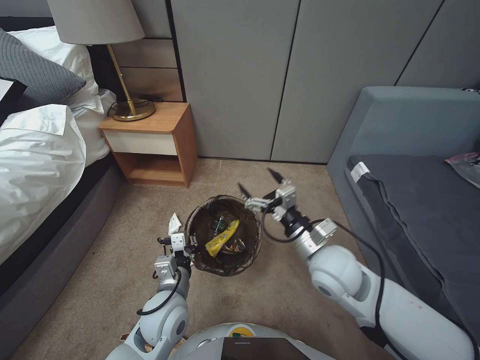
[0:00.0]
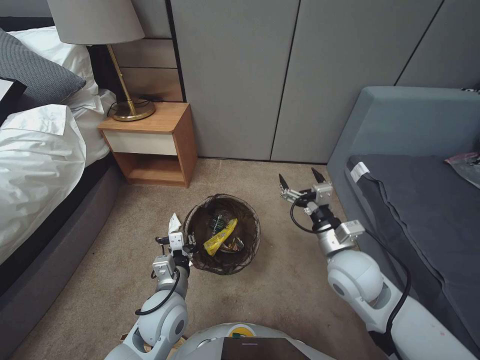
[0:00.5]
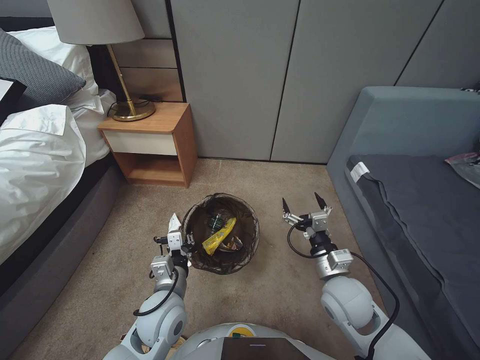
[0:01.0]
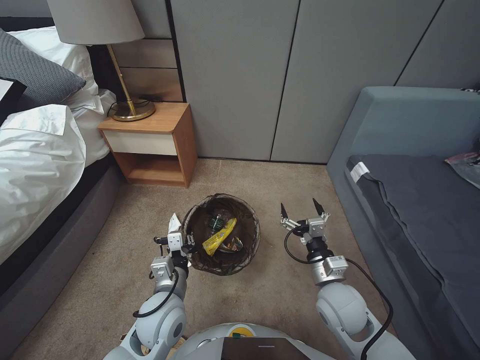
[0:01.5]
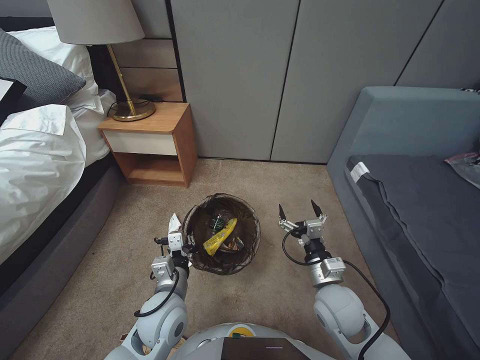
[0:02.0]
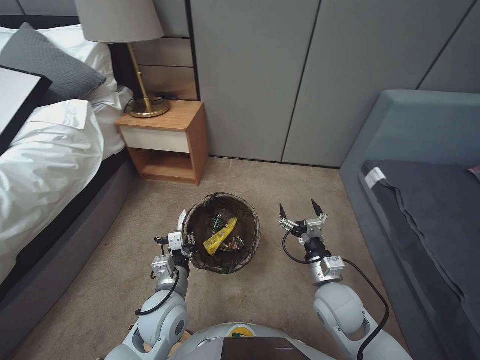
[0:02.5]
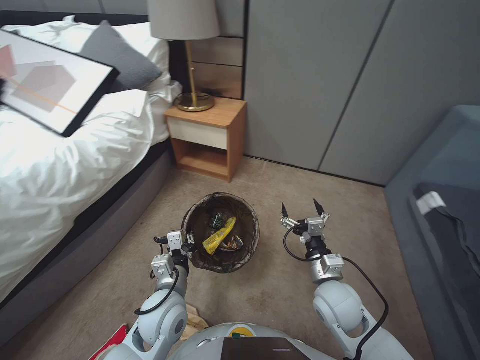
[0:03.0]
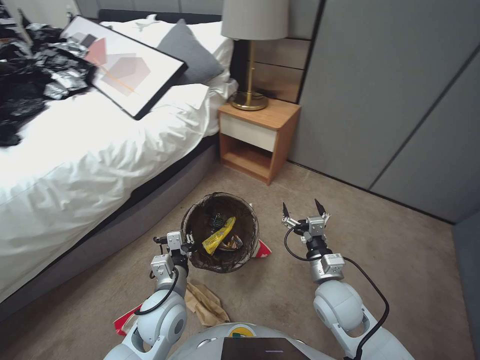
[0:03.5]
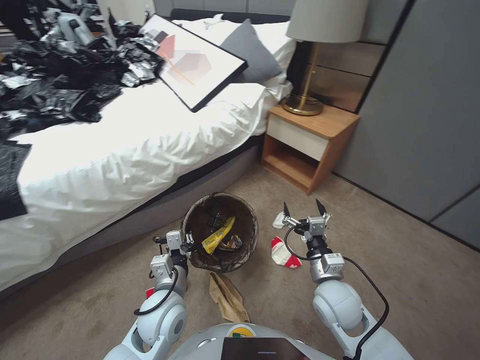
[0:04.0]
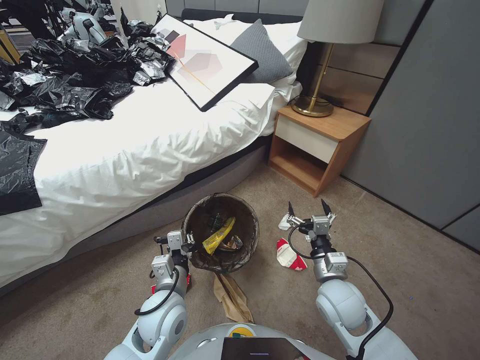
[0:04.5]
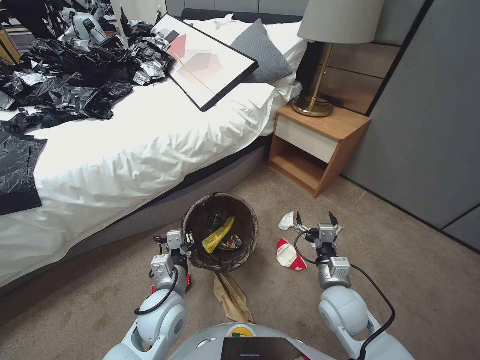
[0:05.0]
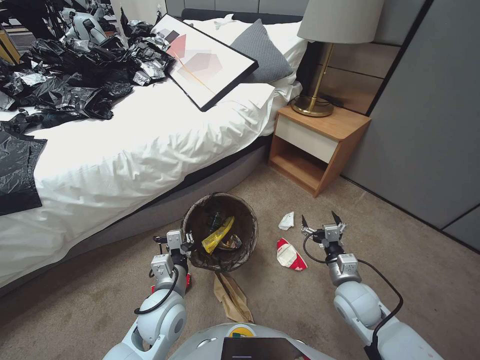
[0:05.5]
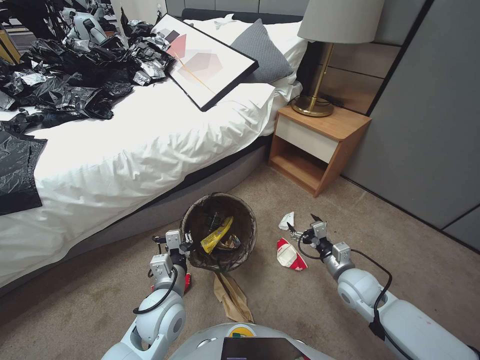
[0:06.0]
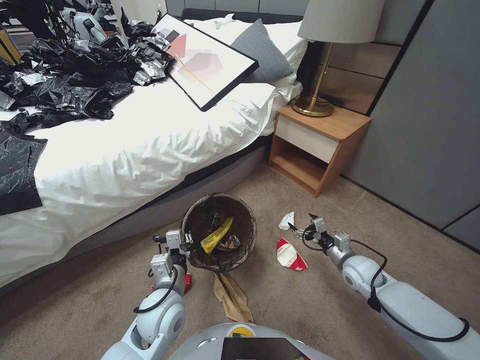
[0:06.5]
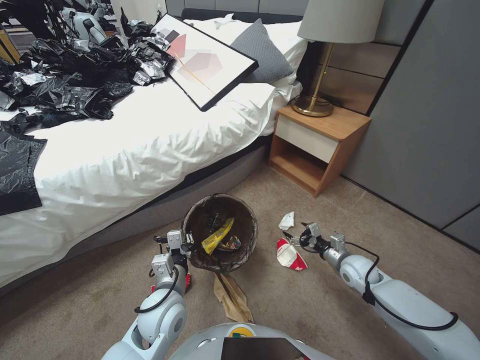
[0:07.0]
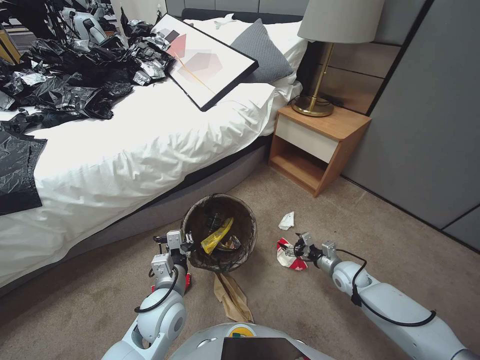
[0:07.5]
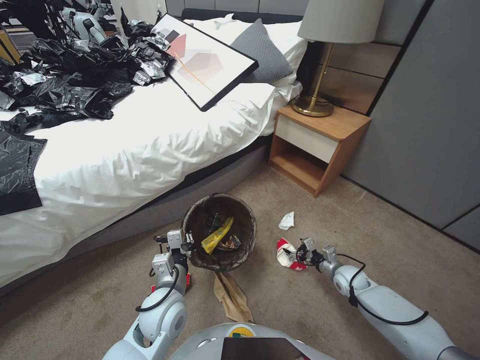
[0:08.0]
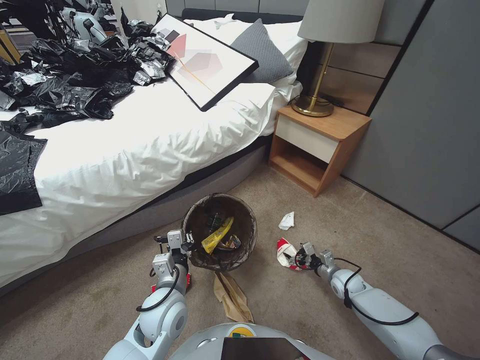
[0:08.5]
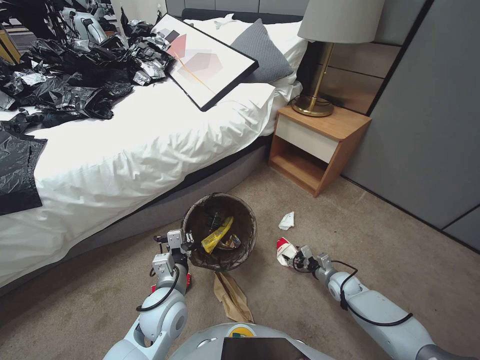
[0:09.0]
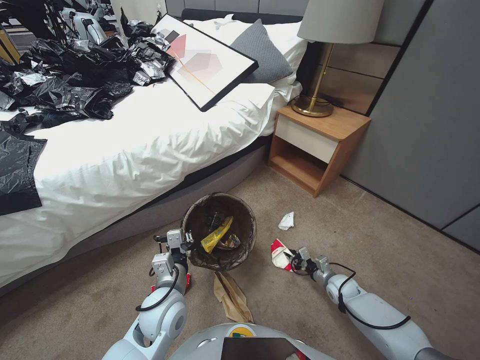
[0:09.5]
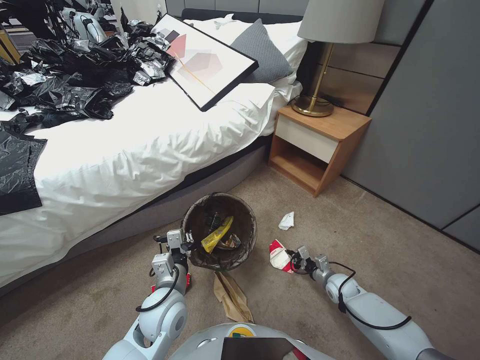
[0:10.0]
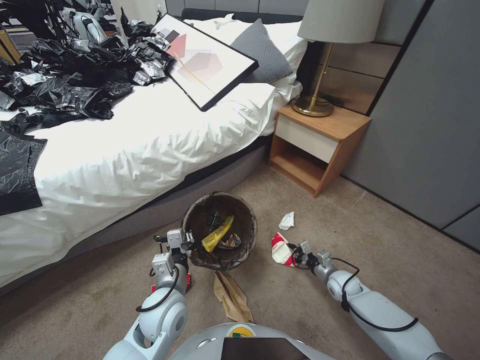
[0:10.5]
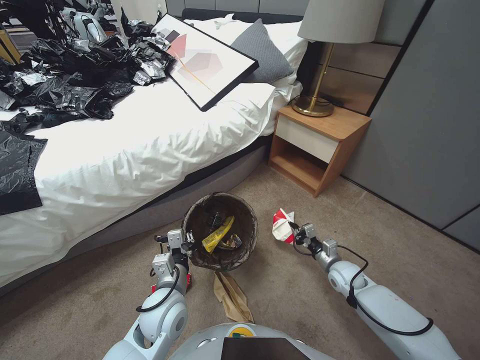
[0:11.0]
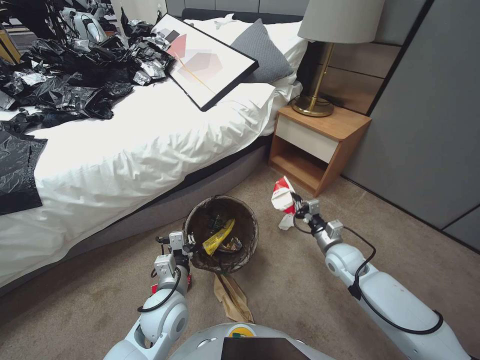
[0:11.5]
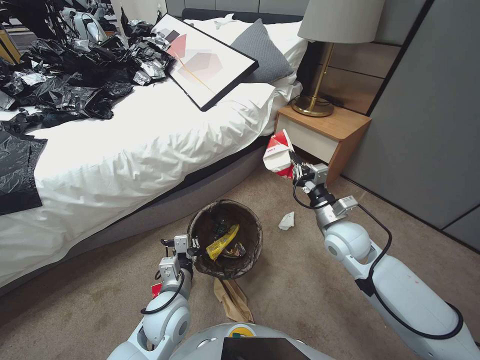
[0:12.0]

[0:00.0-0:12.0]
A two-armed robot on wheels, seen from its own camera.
Task of the whole recording: Pick up the trash bin, then pick up the garbage from the floor and place it into the trash bin.
0:00.0 to 0:02.0: The right gripper moves to the right, roughly 5 cm, and reaches approximately 10 cm upward, then returns.
0:04.0 to 0:06.0: The right gripper moves to the right and downward, some 10 cm.
0:06.0 to 0:08.0: The right gripper is displaced downward, to the right and forward by about 15 cm.
0:08.0 to 0:10.0: The right gripper closes up.
0:10.0 to 0:12.0: The right gripper shifts about 25 cm upward.

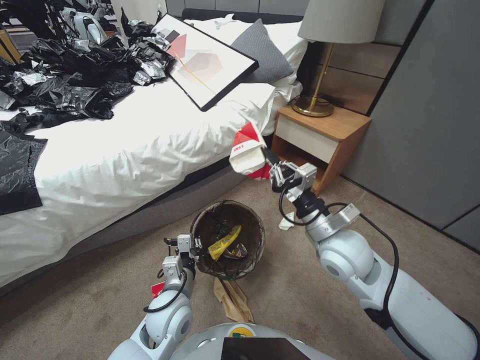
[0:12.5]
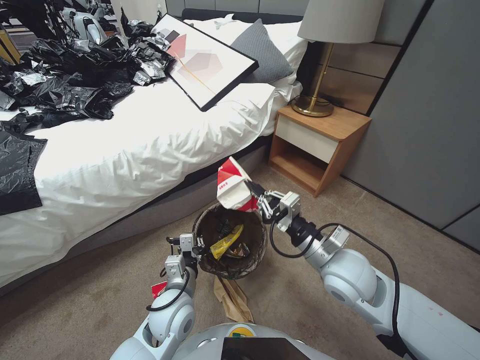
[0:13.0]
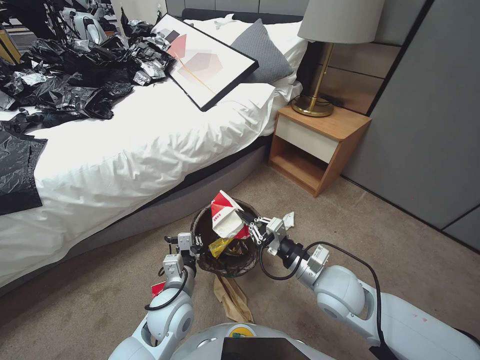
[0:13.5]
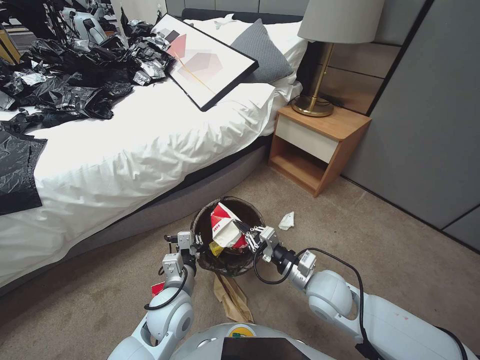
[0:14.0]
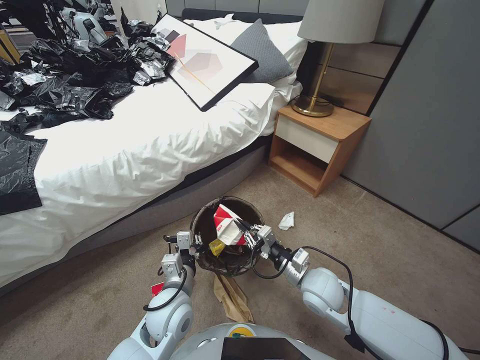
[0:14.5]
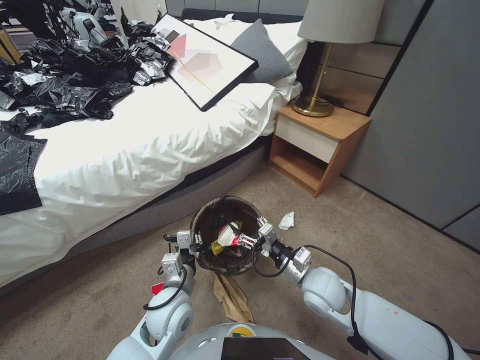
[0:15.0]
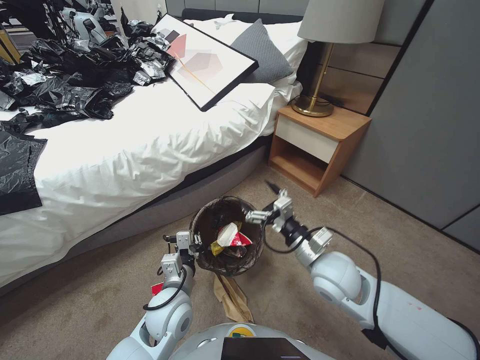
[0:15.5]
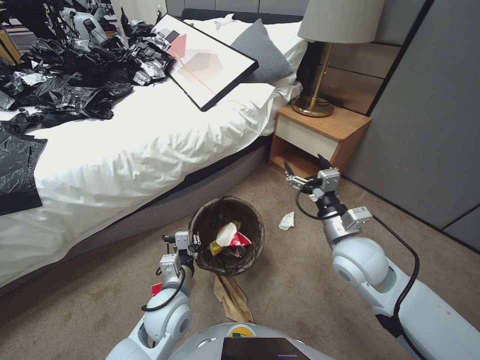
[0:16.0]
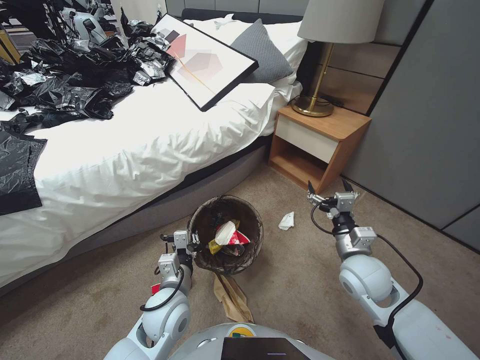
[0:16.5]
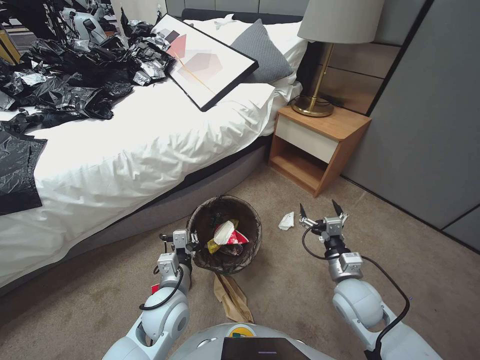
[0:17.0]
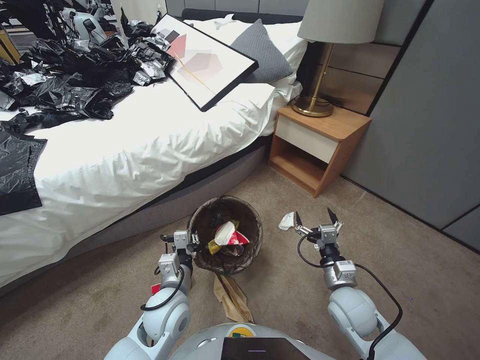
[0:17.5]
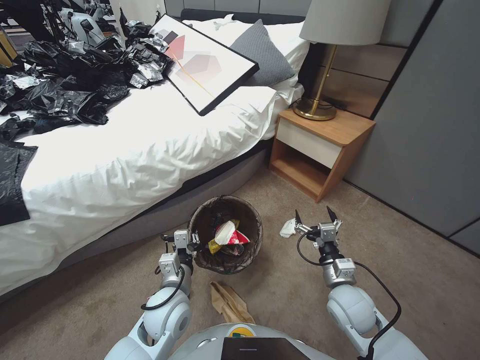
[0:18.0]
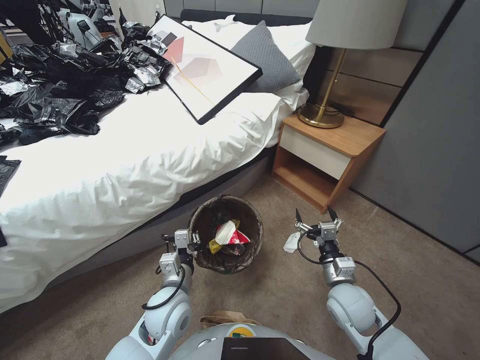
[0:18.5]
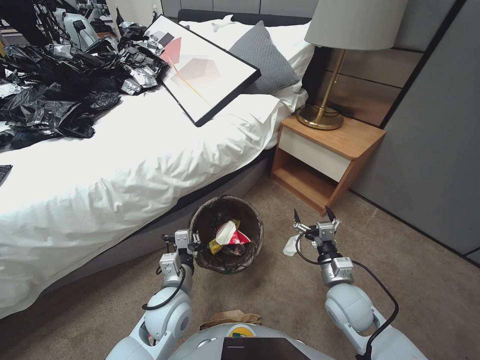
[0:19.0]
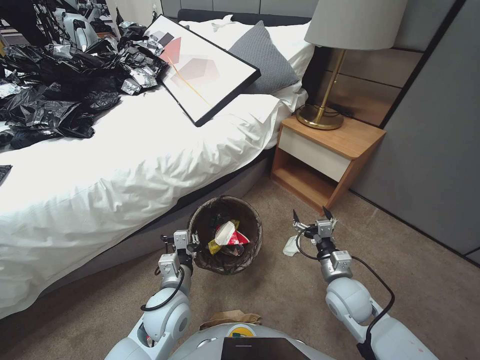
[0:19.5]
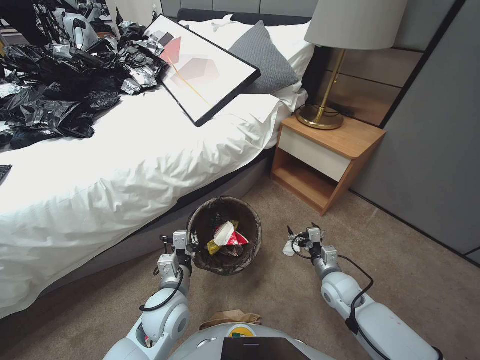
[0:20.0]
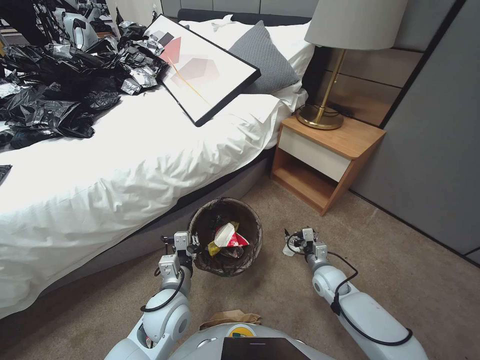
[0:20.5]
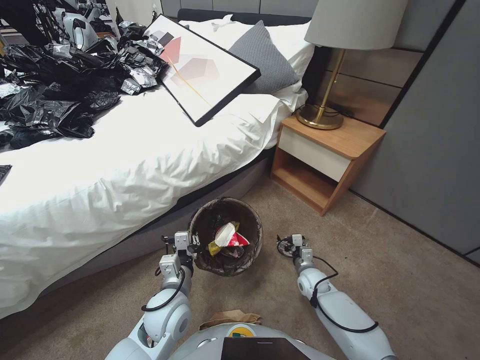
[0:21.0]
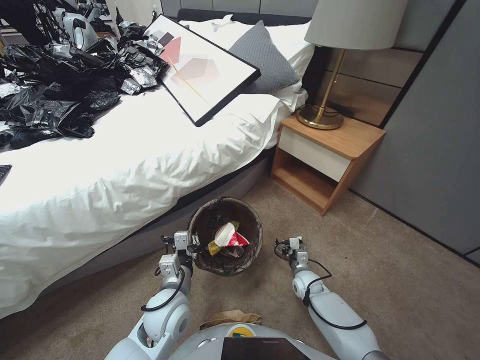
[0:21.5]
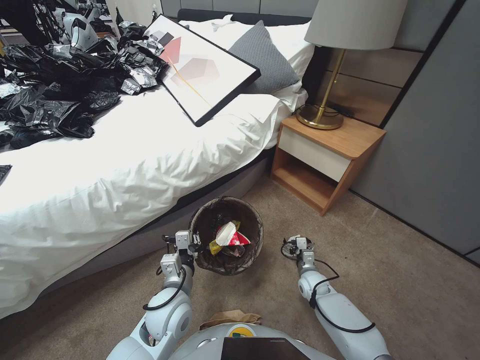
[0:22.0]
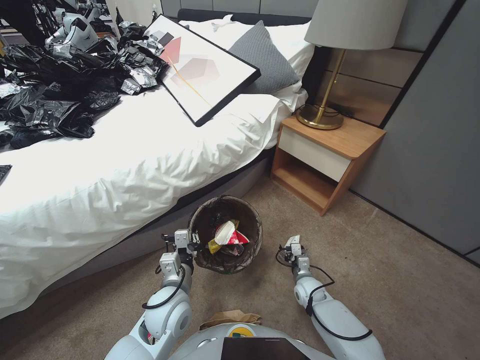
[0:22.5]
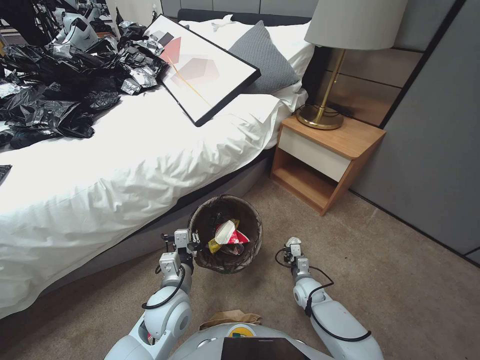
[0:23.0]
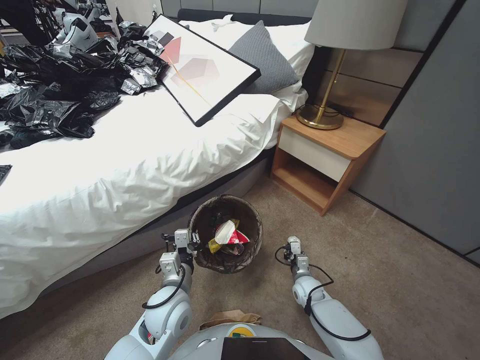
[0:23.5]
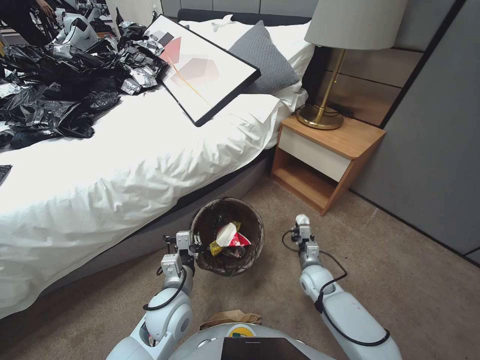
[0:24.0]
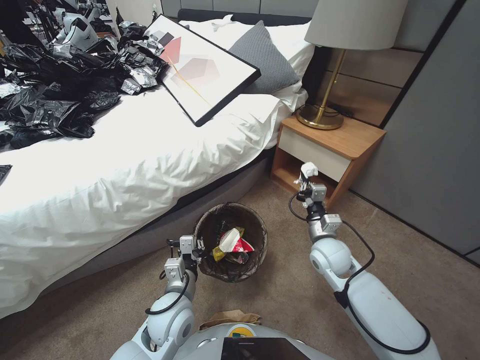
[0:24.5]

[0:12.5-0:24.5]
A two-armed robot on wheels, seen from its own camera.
Task of the whole recording: Pick up the trash bin, then pick up the garbage from the floor and place it into the trash bin.
0:12.5 to 0:14.5: The right gripper goes some 15 cm downward.
0:14.5 to 0:16.5: The right gripper is displaced to the right and upward by some 10 cm, and opens its fingers.
0:16.5 to 0:18.5: The right gripper heads downward, covering approximately 10 cm.
0:18.5 to 0:20.5: The right gripper is displaced downward and forward by some 15 cm.
0:20.5 to 0:22.5: The right gripper heads downward, covering roughly 10 cm.
0:22.5 to 0:24.5: The right gripper shifts roughly 20 cm upward, and closes up.

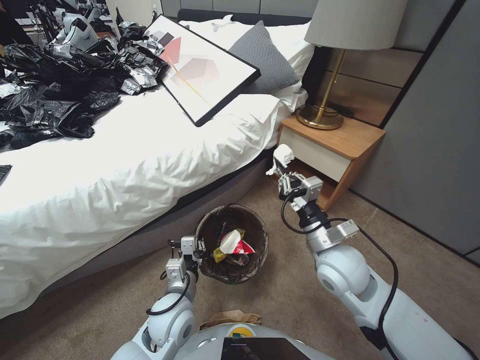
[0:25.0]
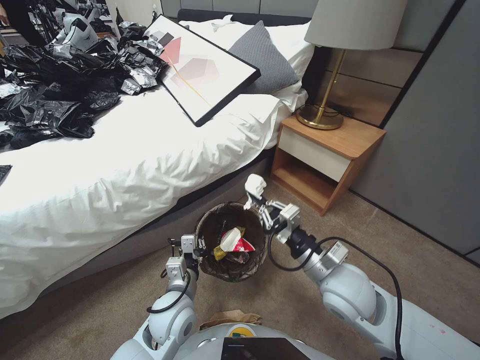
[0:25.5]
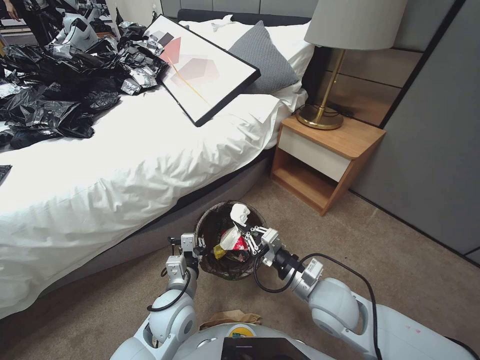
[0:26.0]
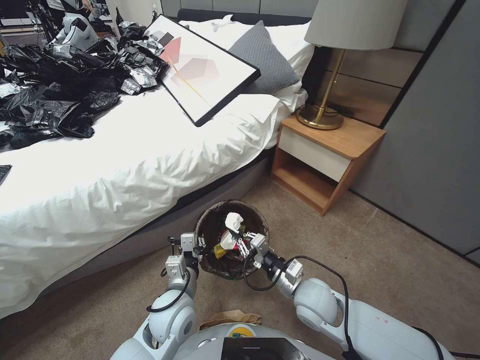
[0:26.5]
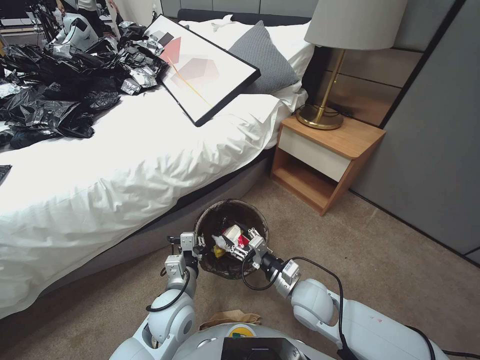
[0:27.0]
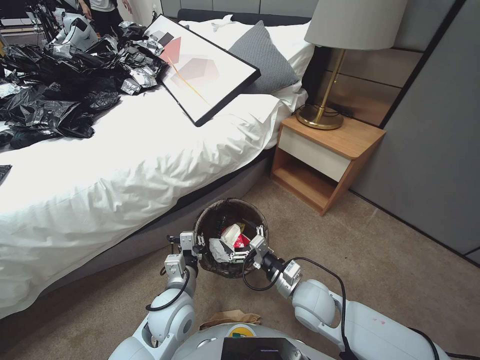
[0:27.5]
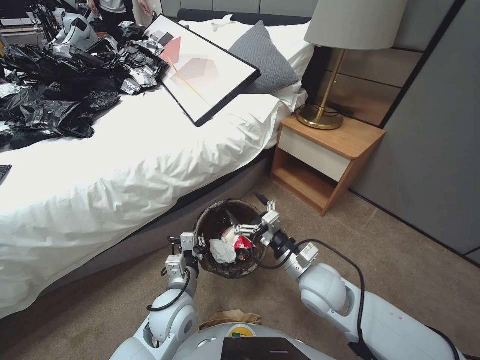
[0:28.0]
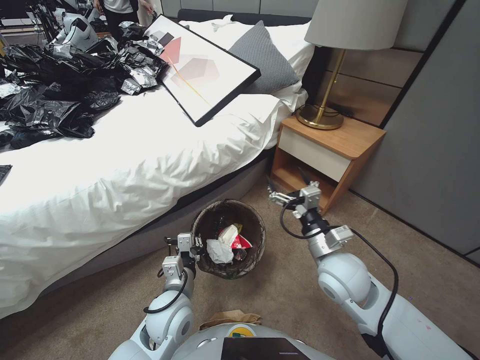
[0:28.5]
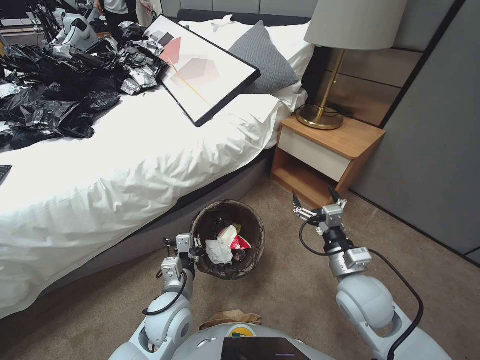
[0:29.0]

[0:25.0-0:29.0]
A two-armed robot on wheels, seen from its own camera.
Task of the whole recording: Pick up the trash bin, then pick up the garbage from the floor and place it into the trash bin.
0:25.0 to 0:27.0: The right gripper shifts about 15 cm downward and backward, and opens.
0:27.0 to 0:29.0: The right gripper is displaced upward and to the right by roughly 10 cm, and opens up.
